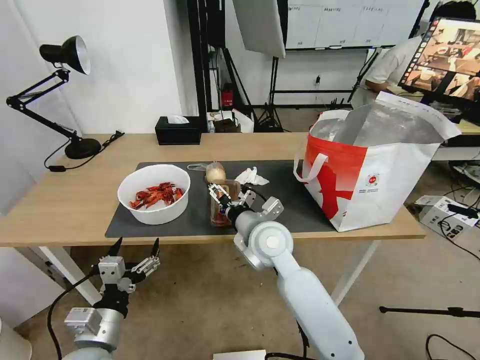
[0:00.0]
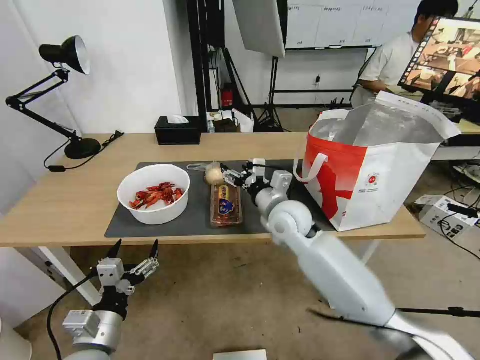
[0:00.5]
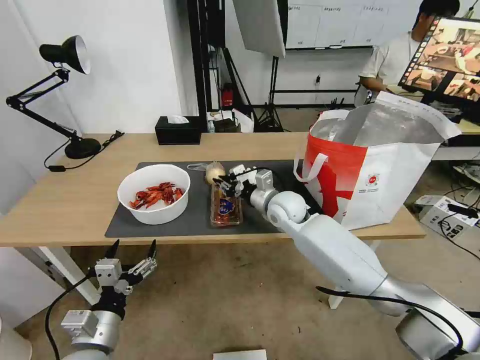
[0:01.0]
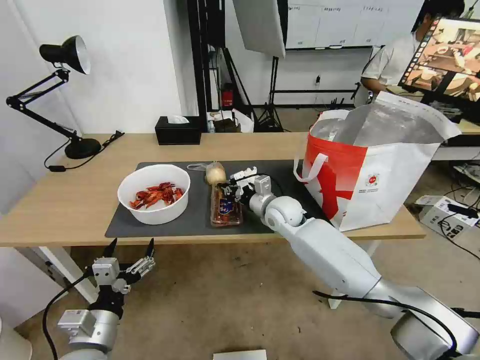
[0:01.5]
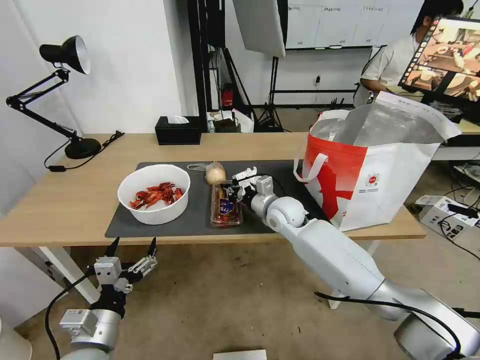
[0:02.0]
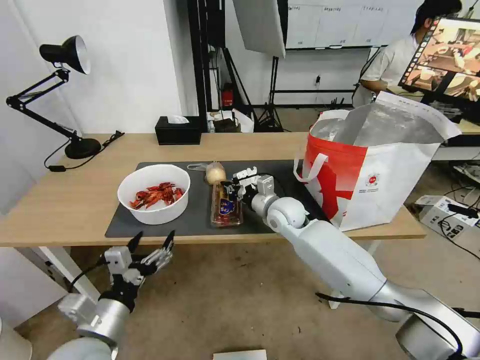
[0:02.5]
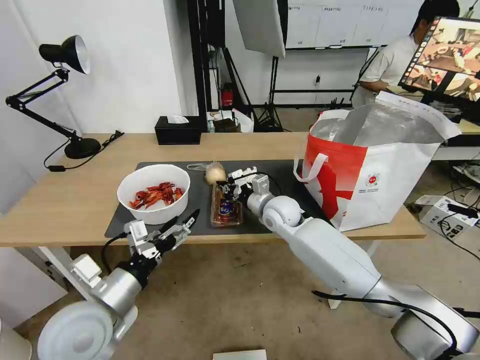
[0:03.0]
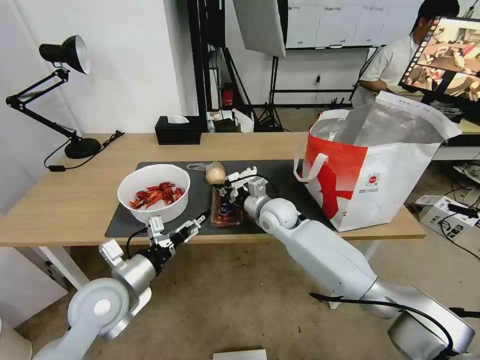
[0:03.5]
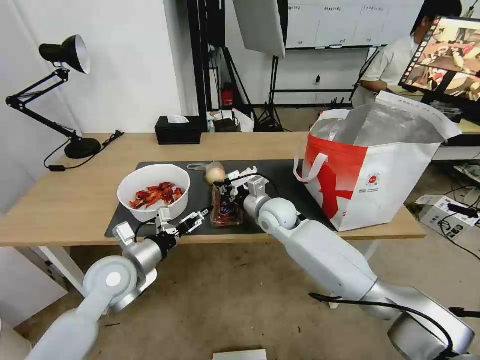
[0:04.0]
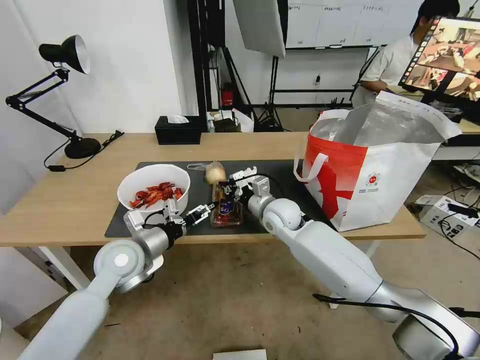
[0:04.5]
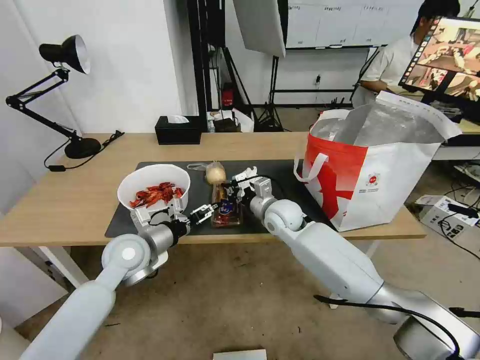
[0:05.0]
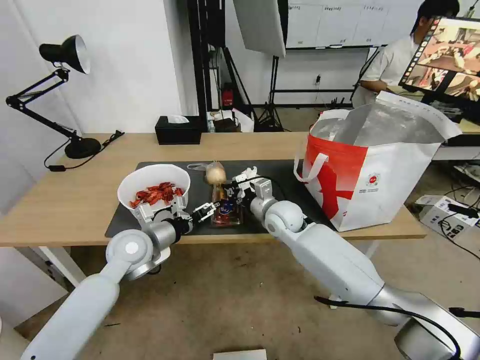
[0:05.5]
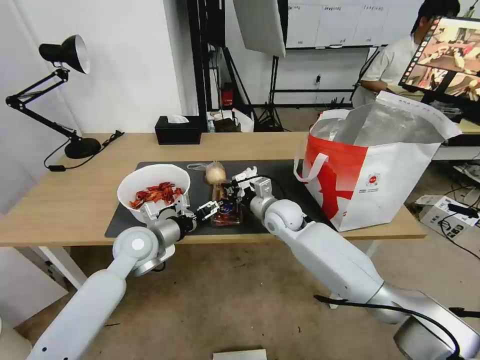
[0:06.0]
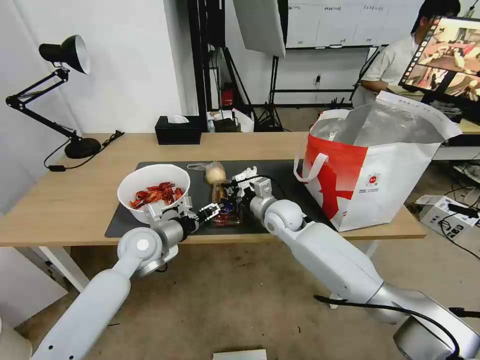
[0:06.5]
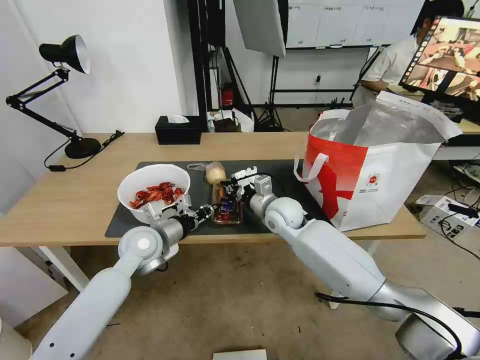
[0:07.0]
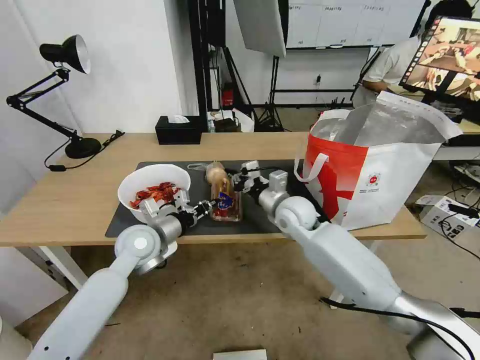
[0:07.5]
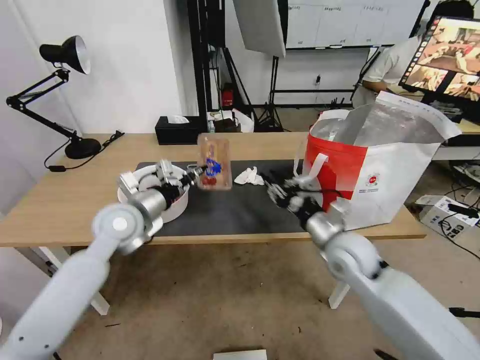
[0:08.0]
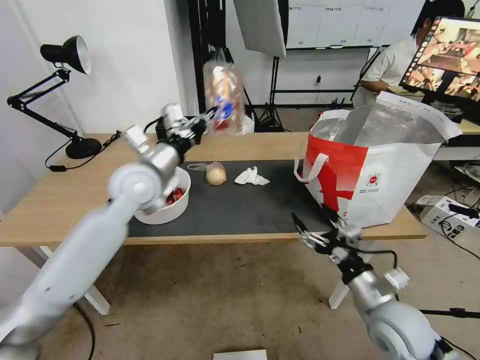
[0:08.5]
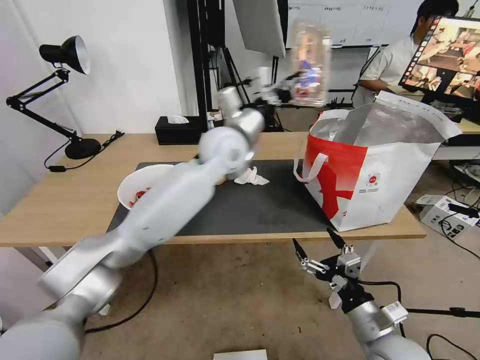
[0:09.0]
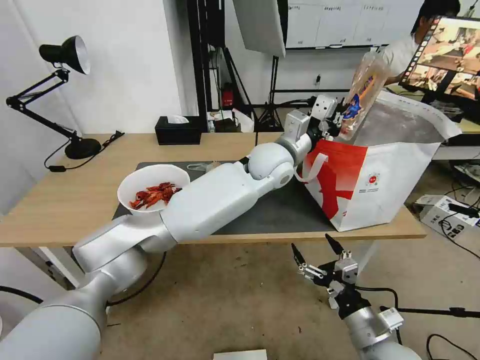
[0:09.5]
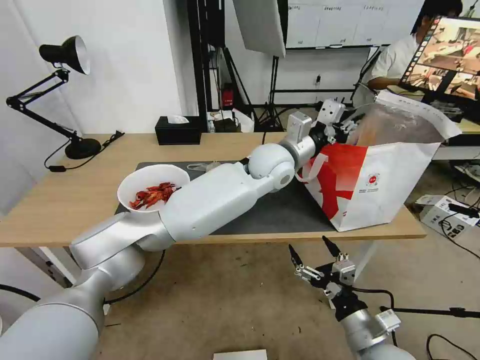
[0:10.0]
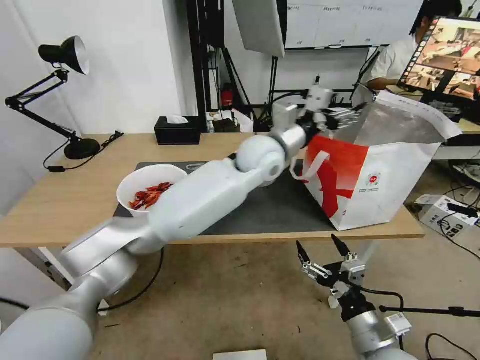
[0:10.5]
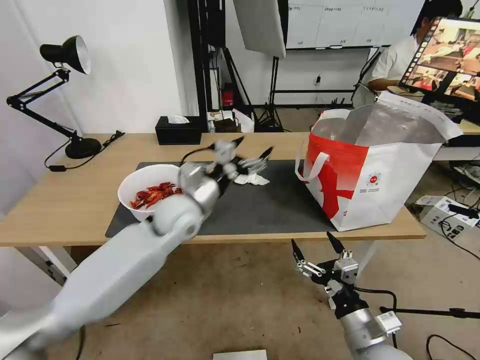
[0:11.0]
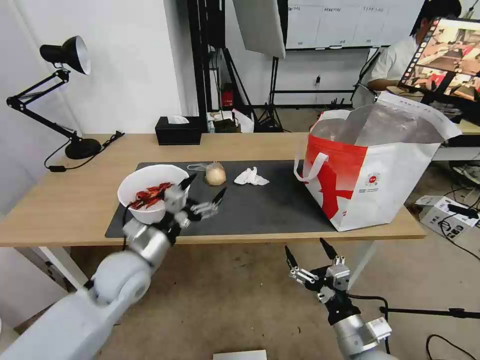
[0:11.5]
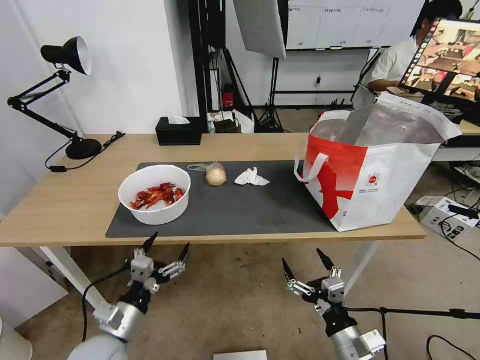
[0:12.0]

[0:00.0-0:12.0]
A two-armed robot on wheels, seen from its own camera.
Task of the whole recording: Pick up the trash from the table and place it into the takeout bag.
0:00.0 to 0:02.0: The right gripper travels forward, to the right and downward by about 15 cm, and closes.
0:02.0 to 0:04.0: The left gripper heads forward, covering some 15 cm.
0:04.0 to 0:06.0: The left gripper shifts some 5 cm forward.
0:06.0 to 0:08.0: The left gripper moves upward, approximately 10 cm, and closes its fingers; the right gripper is displaced backward and to the right by some 20 cm, and opens up.
0:08.0 to 0:10.0: The right gripper heads backward and downward, covering some 20 cm, and opens up; the left gripper goes about 30 cm to the right, and opens.
0:10.0 to 0:12.0: The left gripper is displaced to the left, backward and downward by roughly 50 cm, and opens.

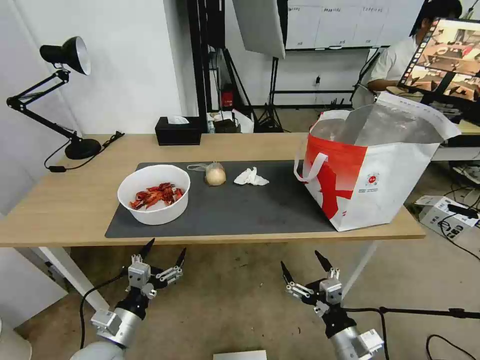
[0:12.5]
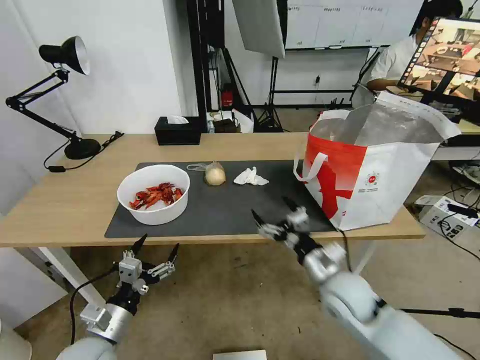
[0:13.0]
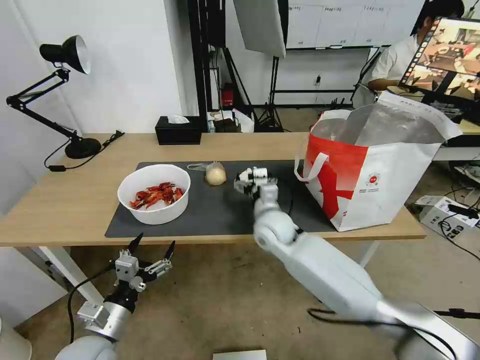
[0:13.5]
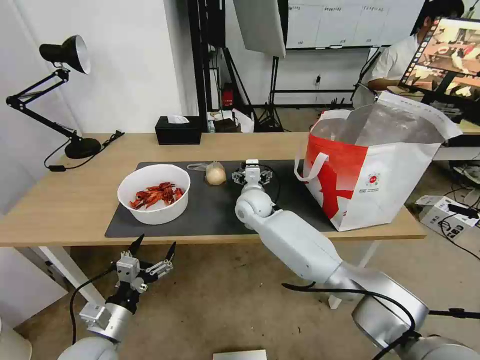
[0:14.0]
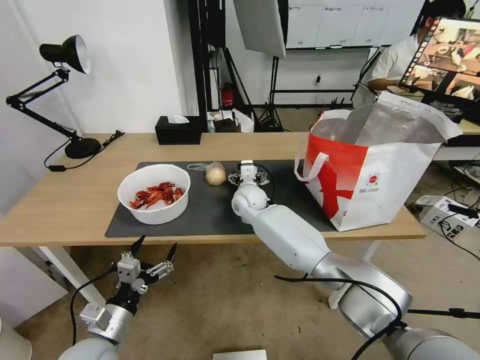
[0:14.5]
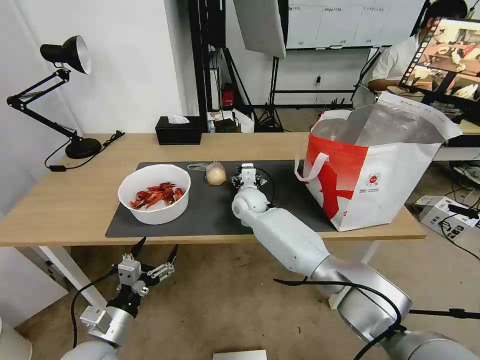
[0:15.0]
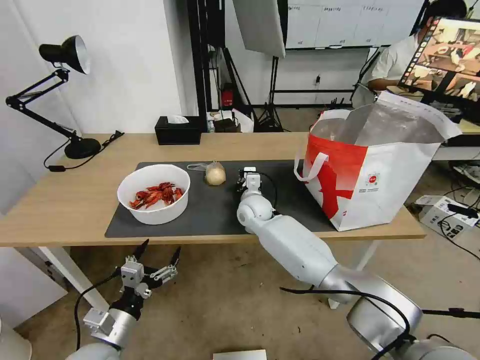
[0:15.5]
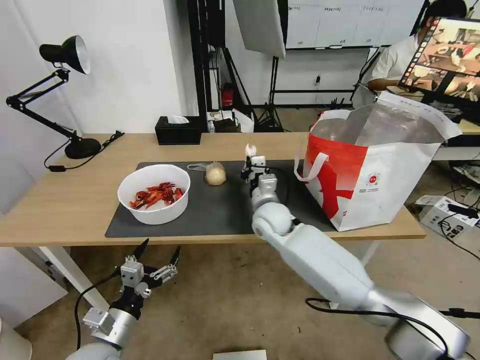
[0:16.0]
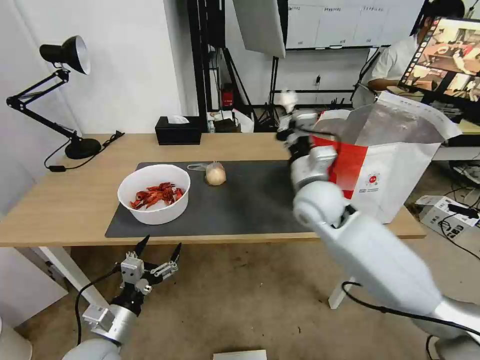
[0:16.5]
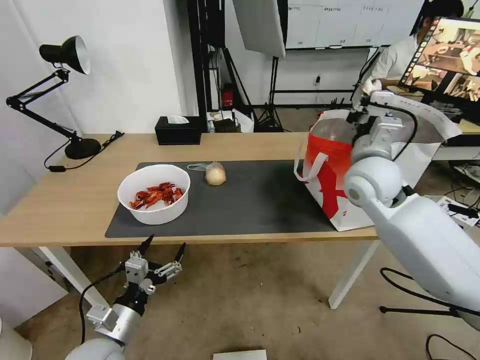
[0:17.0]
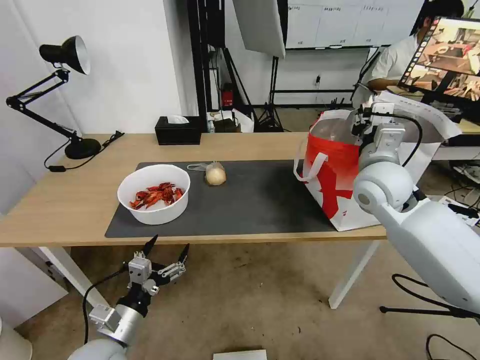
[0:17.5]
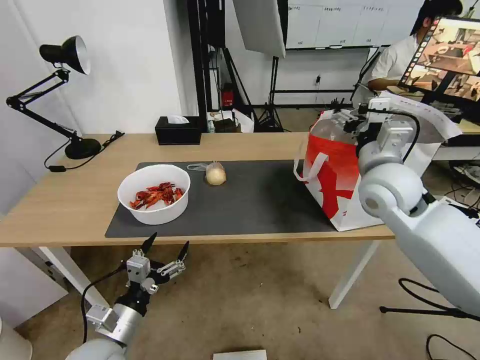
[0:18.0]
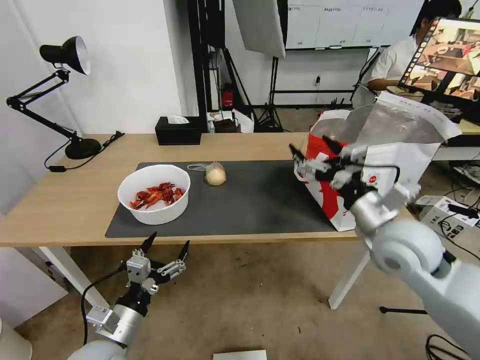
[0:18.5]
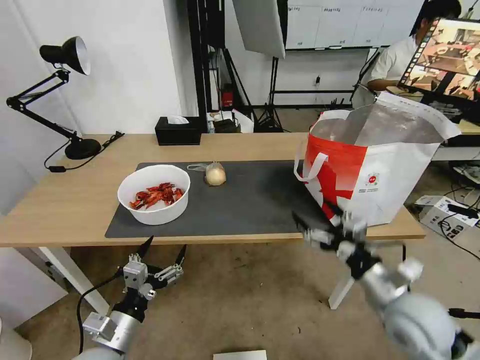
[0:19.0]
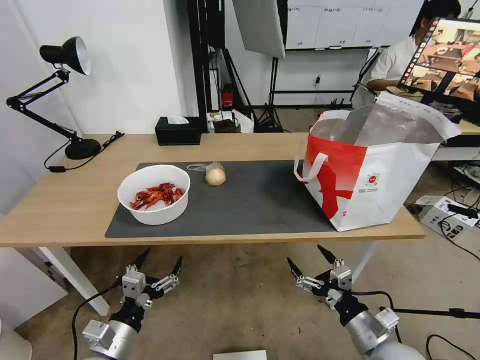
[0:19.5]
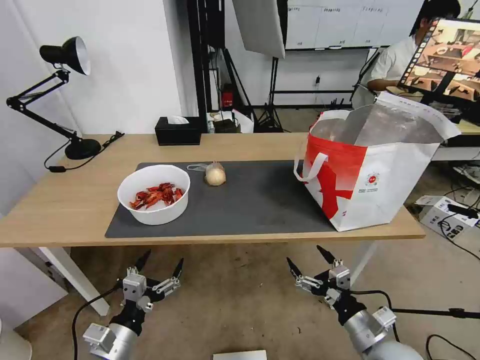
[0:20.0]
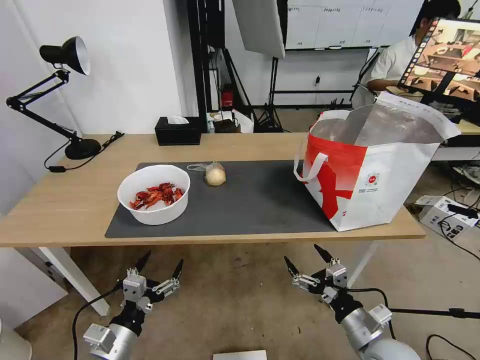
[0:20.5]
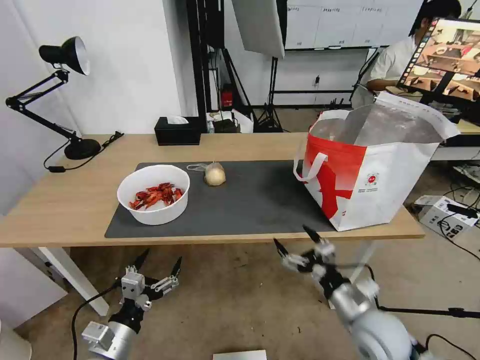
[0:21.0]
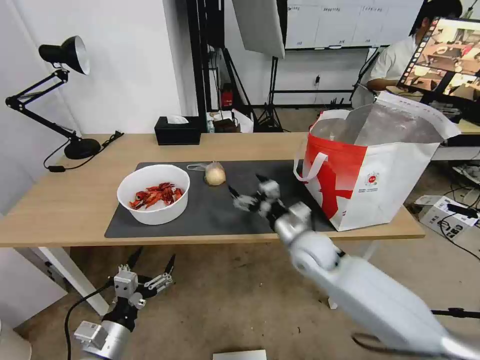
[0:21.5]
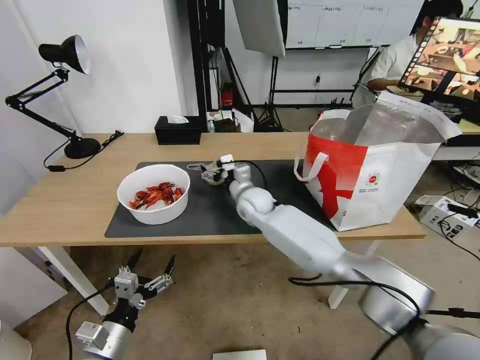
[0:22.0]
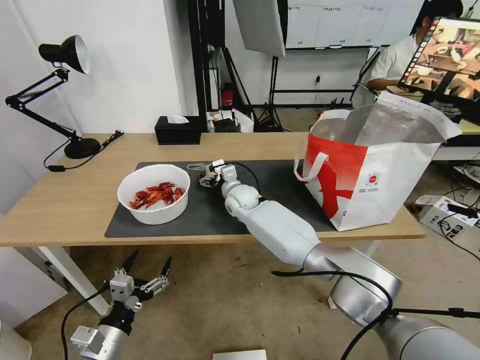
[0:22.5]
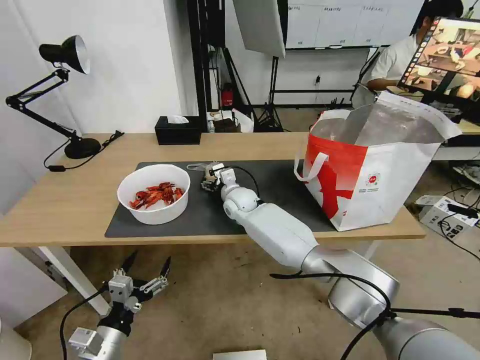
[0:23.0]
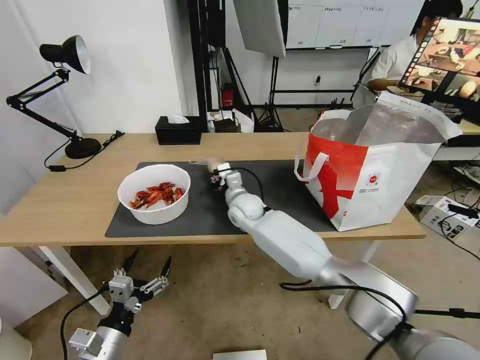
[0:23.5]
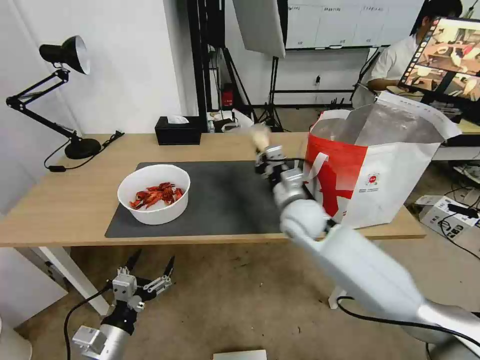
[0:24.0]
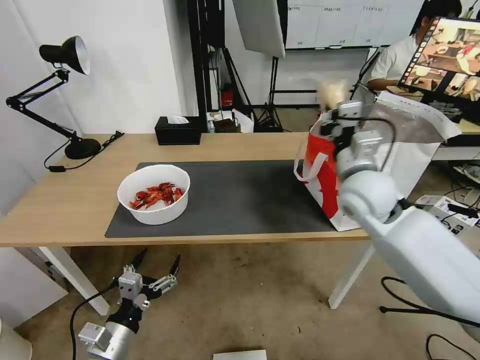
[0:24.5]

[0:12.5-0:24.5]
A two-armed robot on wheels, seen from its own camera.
Task of the whole recording: Pick up the trash from the table and place it into the takeout bag.
0:12.5 to 0:14.5: The right gripper shifts roughly 50 cm forward and to the left.
0:14.5 to 0:16.5: The right gripper goes some 20 cm to the right, upward and backward, and closes.
0:16.5 to 0:18.5: The right gripper shifts about 15 cm to the right and backward, and opens its fingers.
0:18.5 to 0:20.5: The right gripper is displaced downward and backward by some 25 cm.
0:20.5 to 0:22.5: The right gripper goes some 50 cm forward and to the left.
0:22.5 to 0:24.5: The right gripper goes roughly 30 cm to the right, upward and backward, and closes.

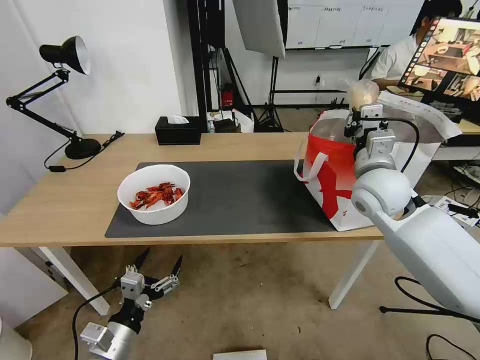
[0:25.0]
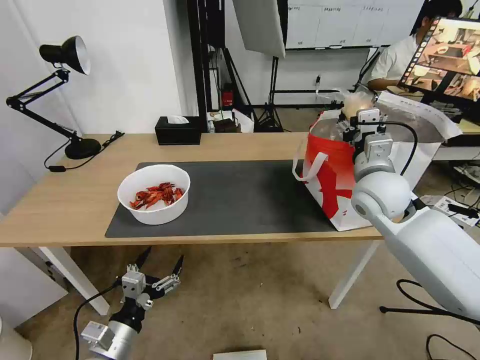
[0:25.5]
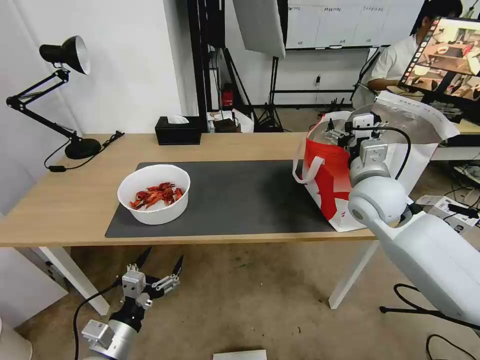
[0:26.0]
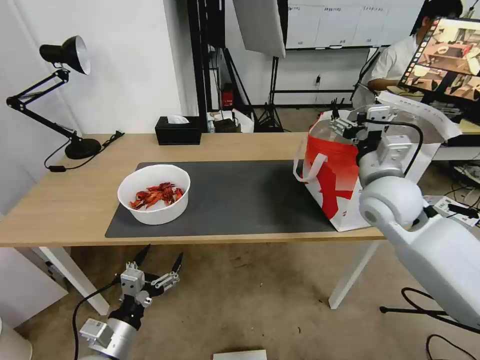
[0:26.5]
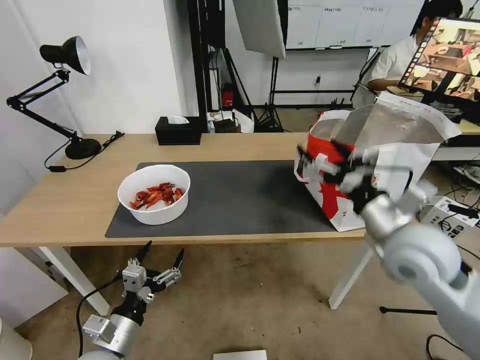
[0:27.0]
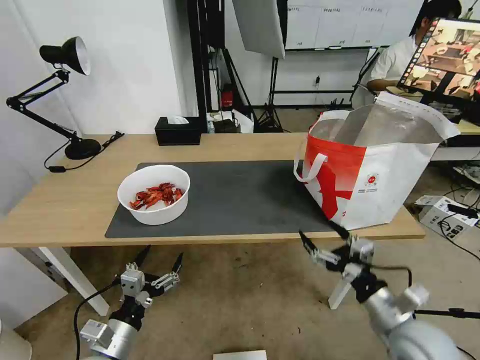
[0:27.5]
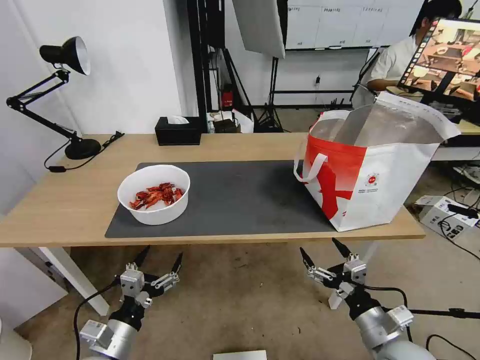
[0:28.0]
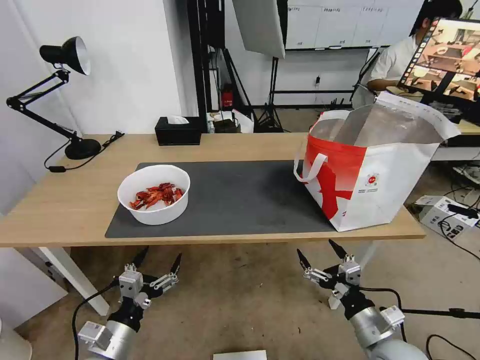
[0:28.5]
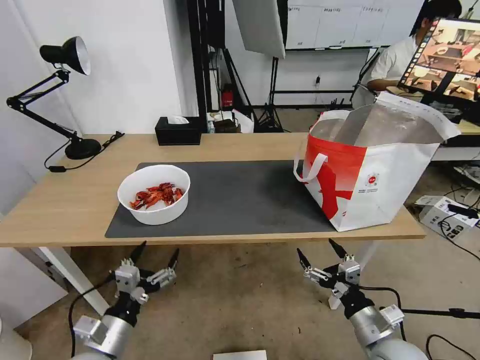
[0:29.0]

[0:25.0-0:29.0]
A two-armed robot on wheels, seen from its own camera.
Task of the whole recording: Pick up the trash from the table and place it into the takeout bag.
0:25.0 to 0:27.0: The right gripper shifts roughly 15 cm backward, and opens up.
0:27.0 to 0:29.0: The right gripper moves downward and backward, some 20 cm.
